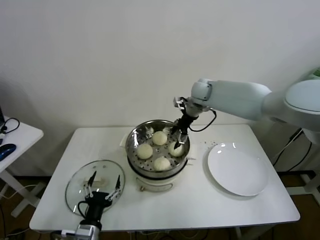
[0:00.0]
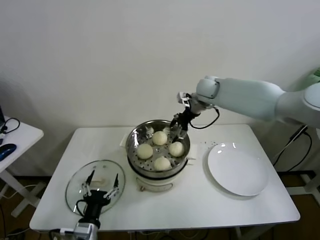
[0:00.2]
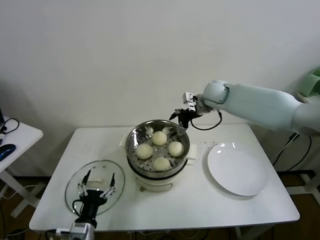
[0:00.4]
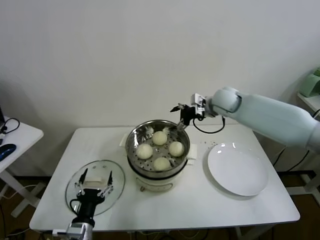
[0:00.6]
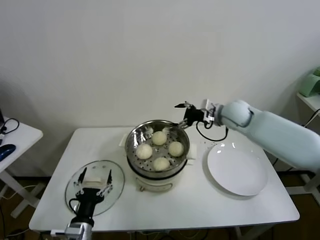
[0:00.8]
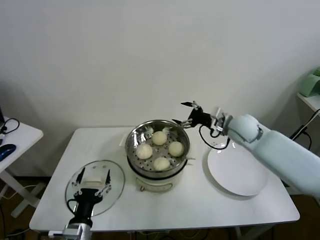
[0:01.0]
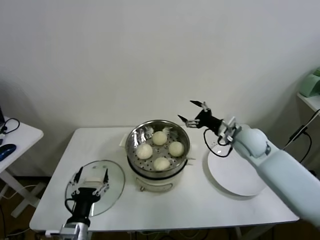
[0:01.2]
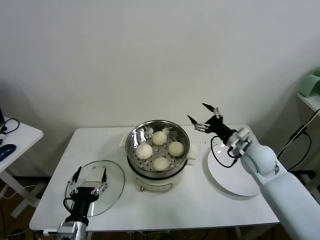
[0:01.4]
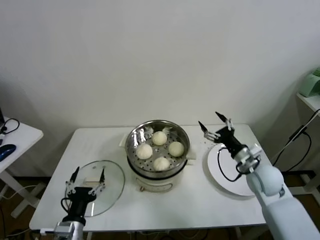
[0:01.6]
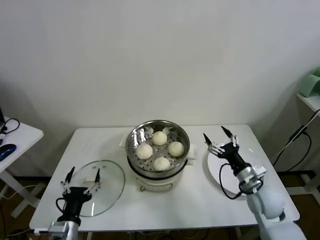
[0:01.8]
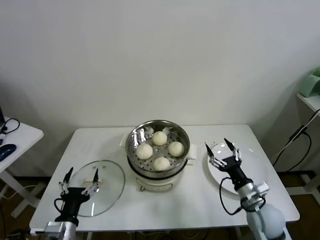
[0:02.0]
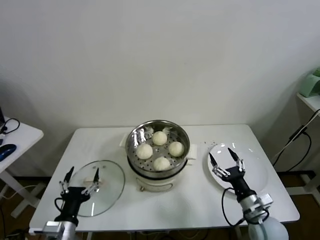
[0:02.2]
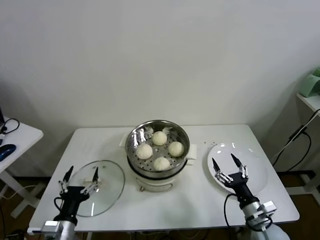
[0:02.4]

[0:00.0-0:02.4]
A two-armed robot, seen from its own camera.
Task of the whole recording: take steamed baozi put them in steamer.
0:00.0 to 0:01.2: The right gripper goes approximately 20 cm backward, to the right and downward.
0:01.2 to 0:02.4: The right gripper moves backward and downward, some 30 cm.

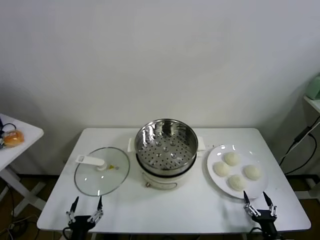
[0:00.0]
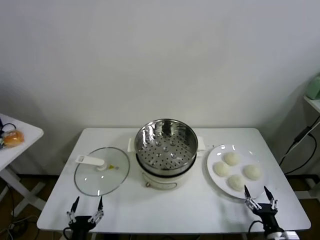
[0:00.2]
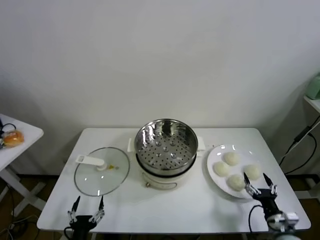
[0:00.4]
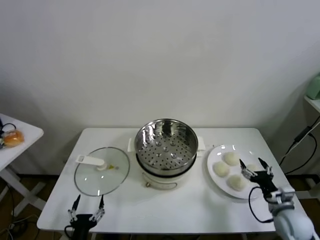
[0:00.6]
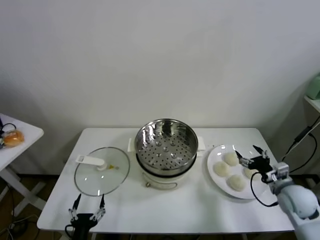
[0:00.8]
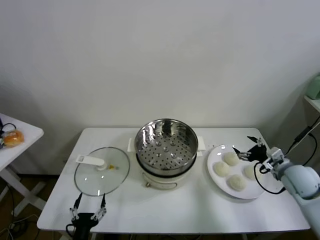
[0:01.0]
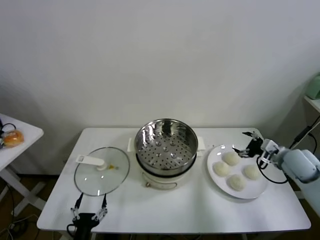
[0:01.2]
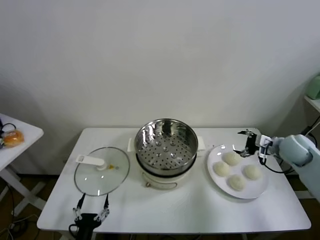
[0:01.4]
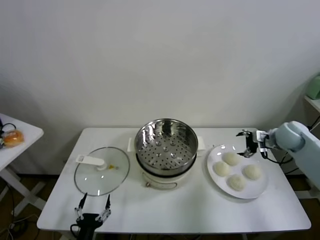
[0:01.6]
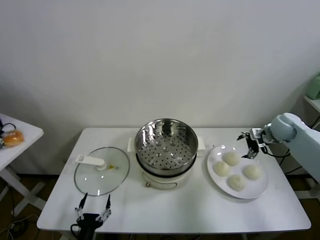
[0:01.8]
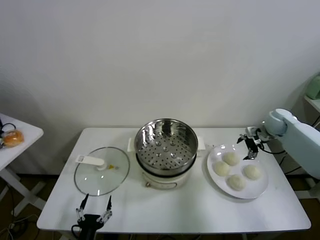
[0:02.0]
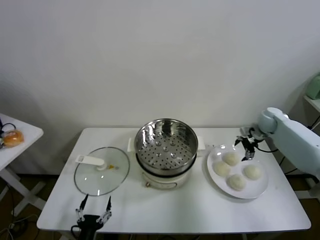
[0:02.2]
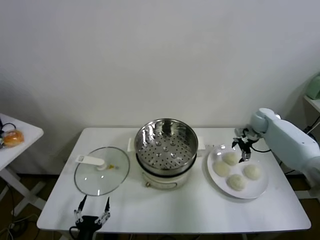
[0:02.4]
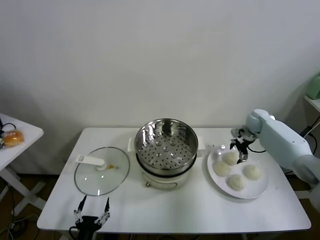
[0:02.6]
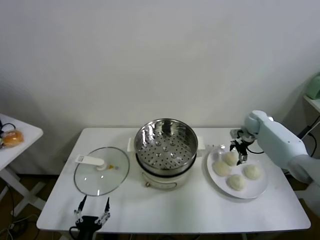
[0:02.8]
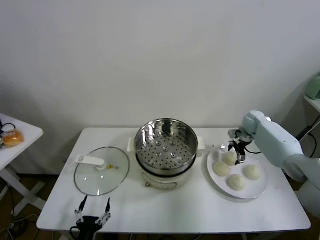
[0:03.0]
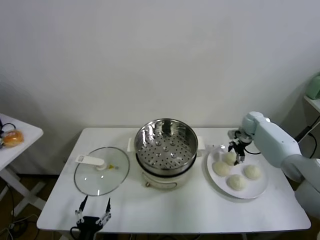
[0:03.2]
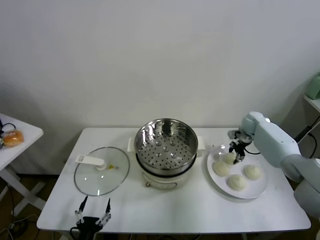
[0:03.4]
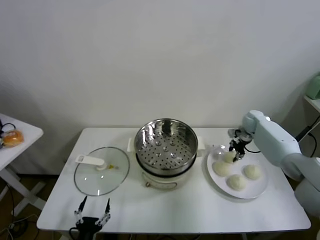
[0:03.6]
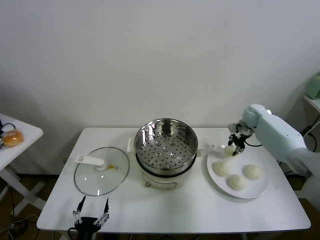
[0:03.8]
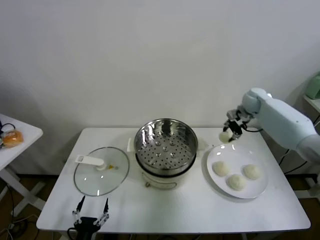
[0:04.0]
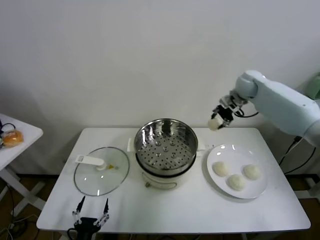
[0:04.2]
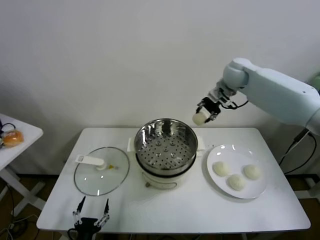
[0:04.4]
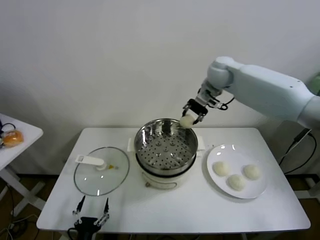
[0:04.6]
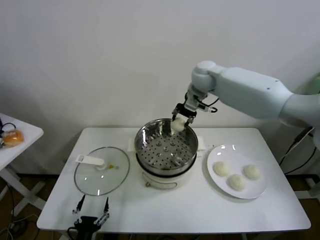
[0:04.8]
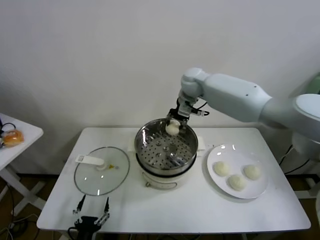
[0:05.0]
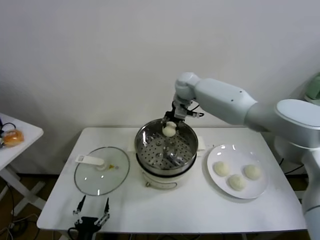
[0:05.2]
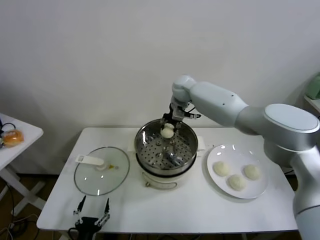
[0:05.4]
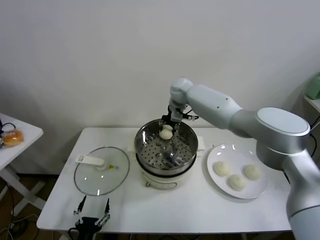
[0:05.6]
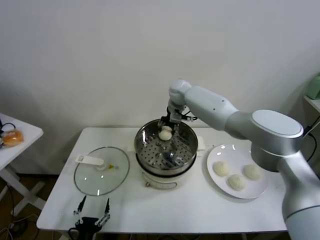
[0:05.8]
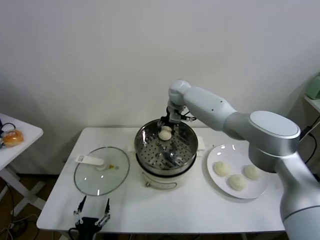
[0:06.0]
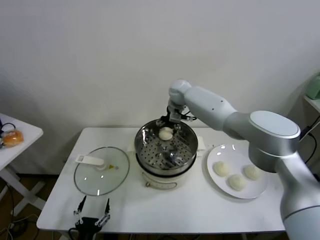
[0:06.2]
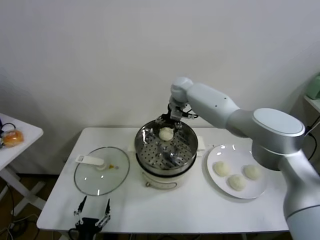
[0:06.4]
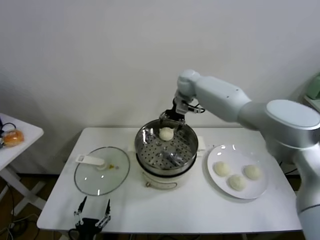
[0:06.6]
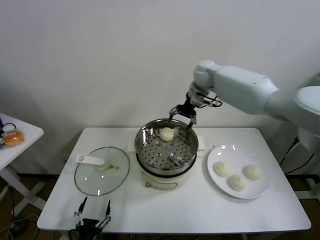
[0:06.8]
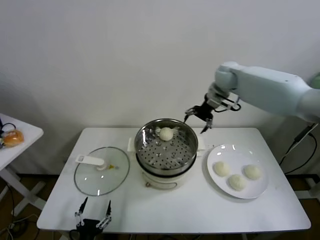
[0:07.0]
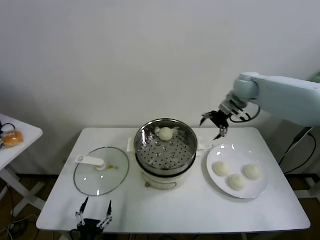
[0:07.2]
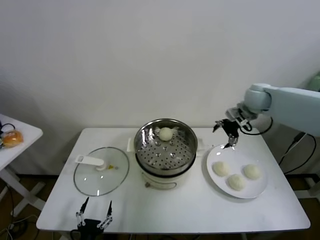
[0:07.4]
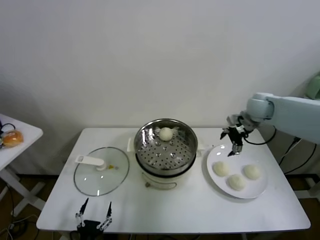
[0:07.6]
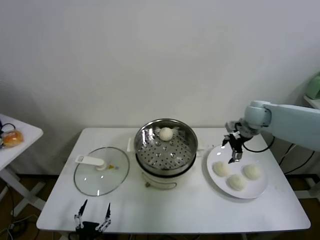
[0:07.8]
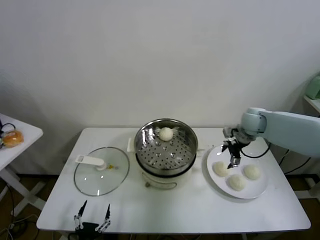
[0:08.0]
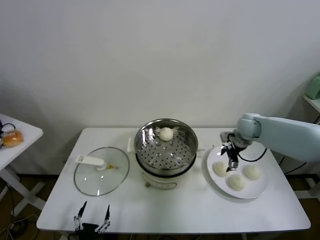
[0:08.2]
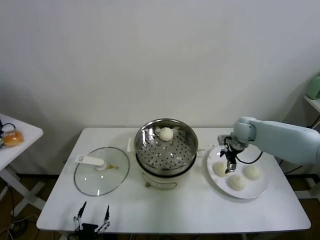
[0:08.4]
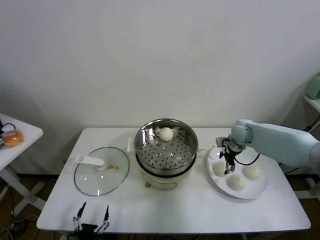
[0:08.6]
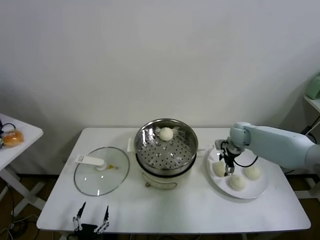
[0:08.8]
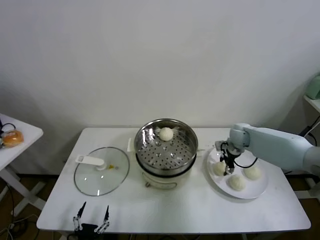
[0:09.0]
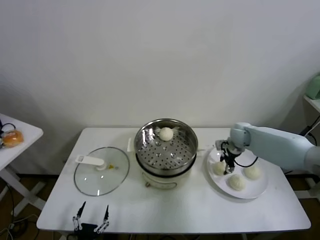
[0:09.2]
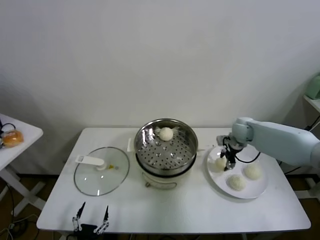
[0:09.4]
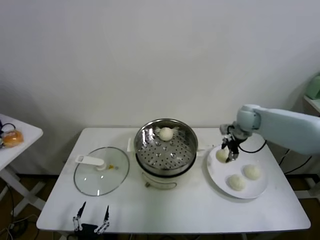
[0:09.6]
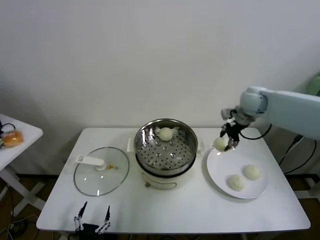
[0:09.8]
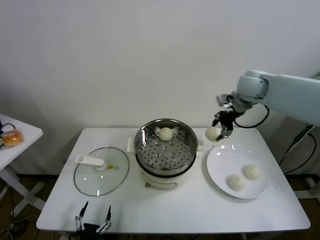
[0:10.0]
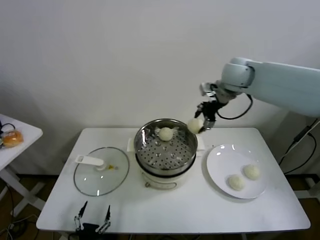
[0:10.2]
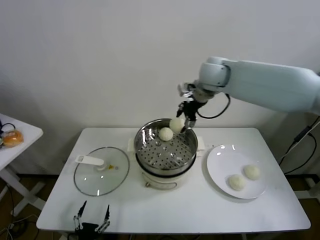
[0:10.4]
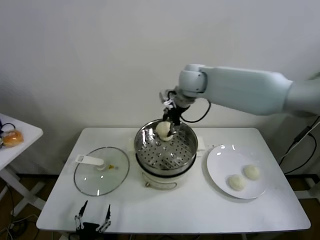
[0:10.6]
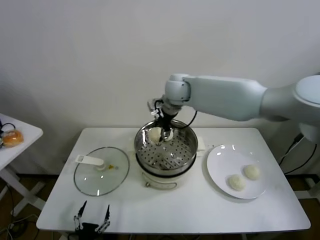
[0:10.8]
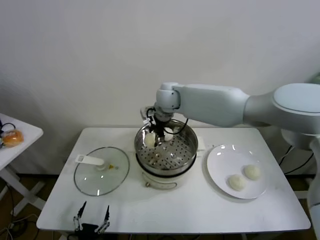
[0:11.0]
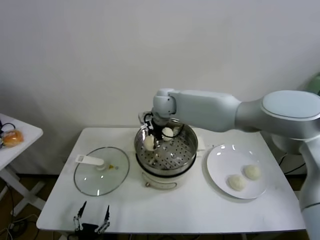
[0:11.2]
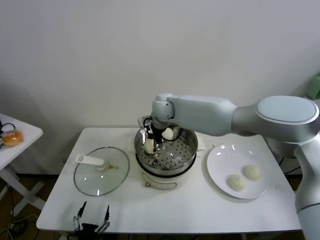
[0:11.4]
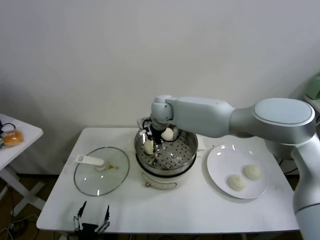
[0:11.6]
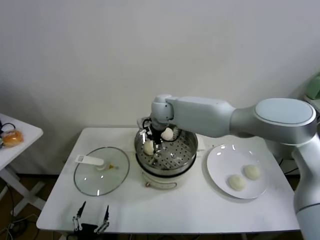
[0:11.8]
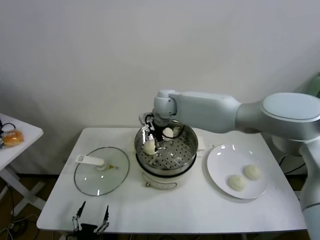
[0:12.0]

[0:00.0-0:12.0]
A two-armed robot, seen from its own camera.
Task of the whole recording: take steamed baozi put them in steamer.
Step, 0:00.0 to 0:03.2: Grasp the baozi in the plate with right gripper.
Step, 0:03.4 to 0:06.2: Place the baozi on the steamer with right gripper.
Step, 0:06.4 to 0:09.0: Grasp the baozi in the plate with right gripper.
Step, 0:09.2 to 0:11.6: Place the baozi on the steamer with right gripper.
0:01.6 to 0:03.0: The right gripper goes roughly 15 cm forward and downward.
0:03.0 to 0:04.4: The right gripper is displaced upward and to the left by approximately 30 cm, and closes its fingers.
0:04.4 to 0:06.0: The right gripper is displaced to the left and downward by some 20 cm.
0:06.0 to 0:07.6: The right gripper shifts approximately 30 cm to the right and backward, and opens its fingers.
0:07.6 to 0:09.0: The right gripper heads downward, covering roughly 15 cm, and closes up.
0:09.0 to 0:10.4: The right gripper travels upward and to the left by some 30 cm.
0:10.4 to 0:12.0: The right gripper goes roughly 15 cm to the left and downward, and opens up.

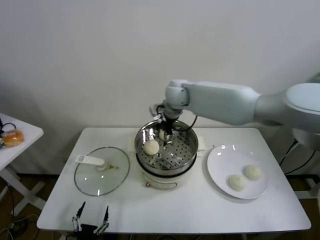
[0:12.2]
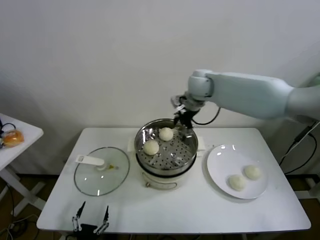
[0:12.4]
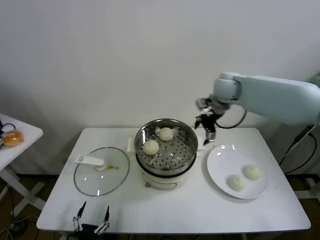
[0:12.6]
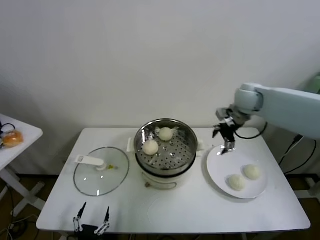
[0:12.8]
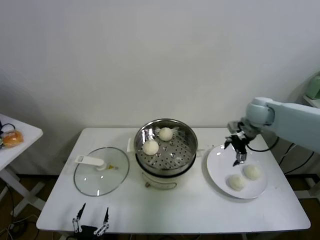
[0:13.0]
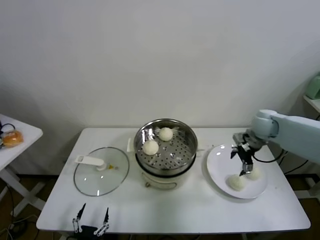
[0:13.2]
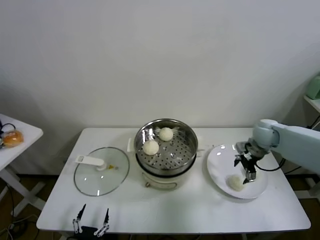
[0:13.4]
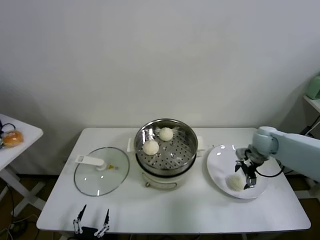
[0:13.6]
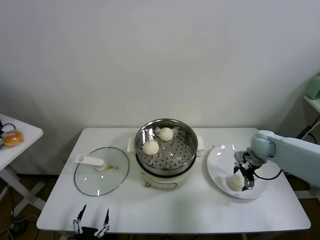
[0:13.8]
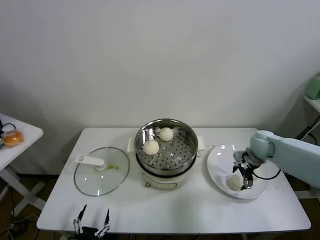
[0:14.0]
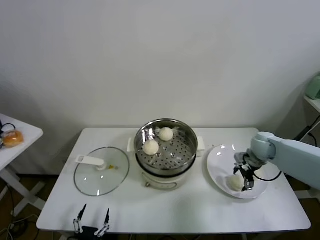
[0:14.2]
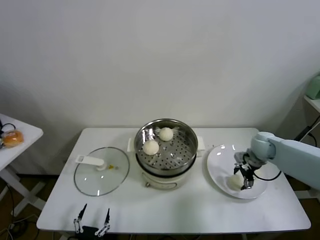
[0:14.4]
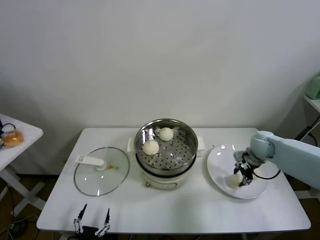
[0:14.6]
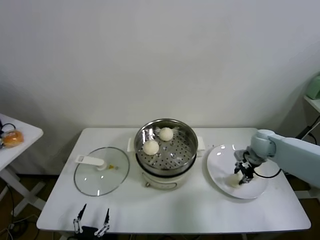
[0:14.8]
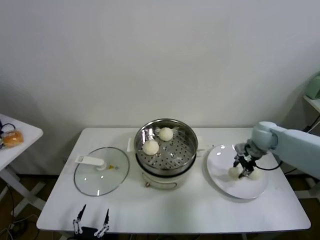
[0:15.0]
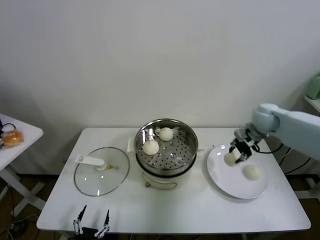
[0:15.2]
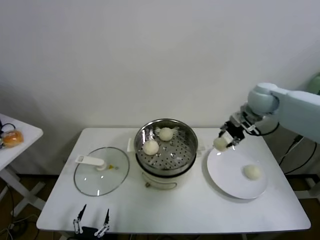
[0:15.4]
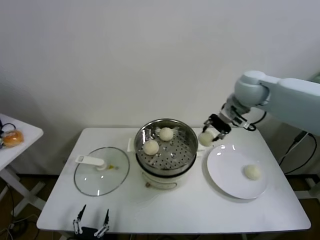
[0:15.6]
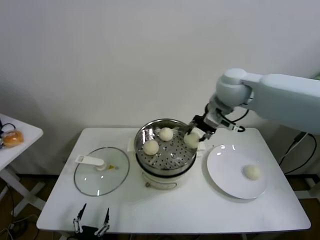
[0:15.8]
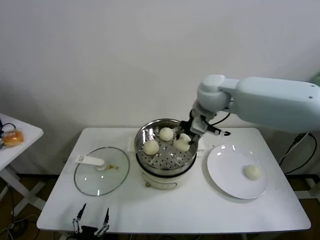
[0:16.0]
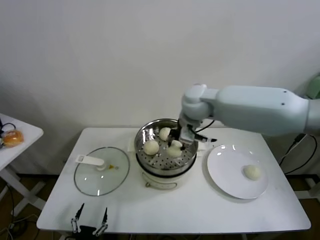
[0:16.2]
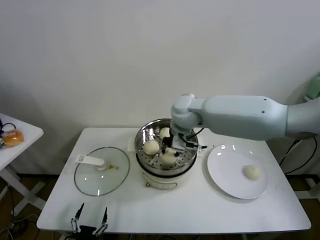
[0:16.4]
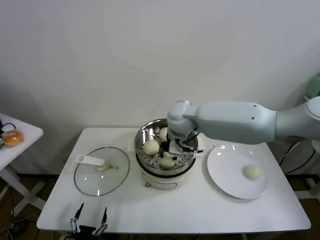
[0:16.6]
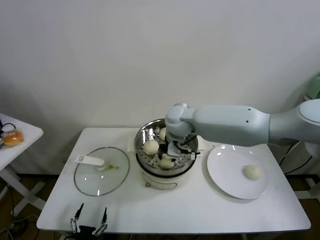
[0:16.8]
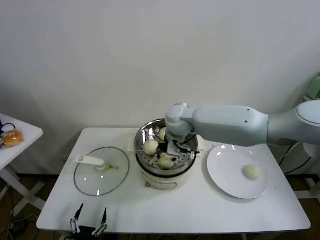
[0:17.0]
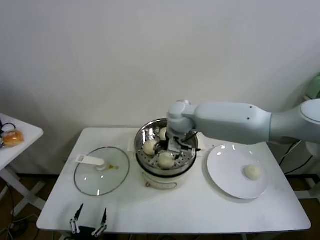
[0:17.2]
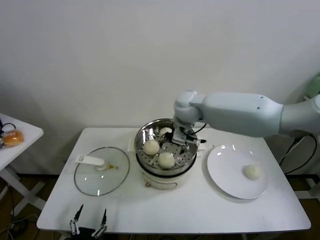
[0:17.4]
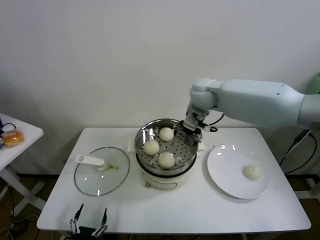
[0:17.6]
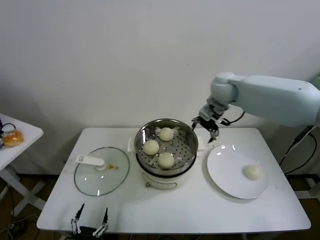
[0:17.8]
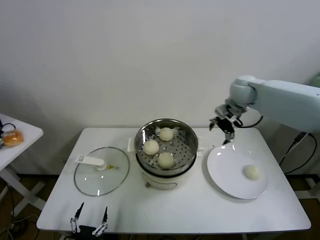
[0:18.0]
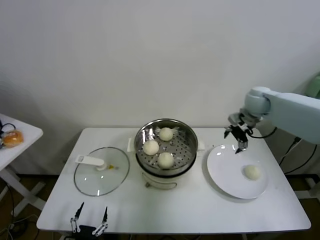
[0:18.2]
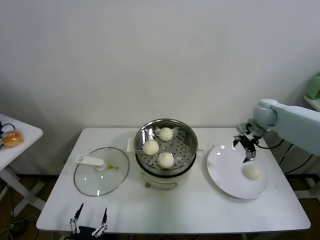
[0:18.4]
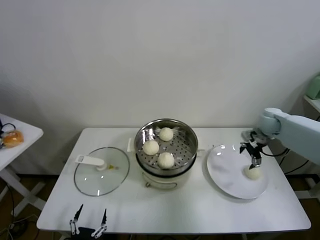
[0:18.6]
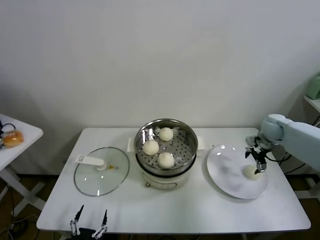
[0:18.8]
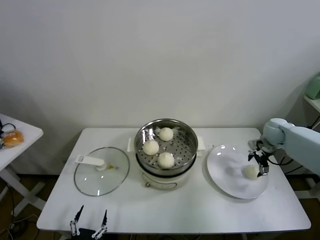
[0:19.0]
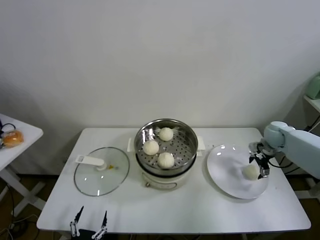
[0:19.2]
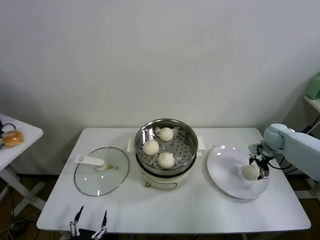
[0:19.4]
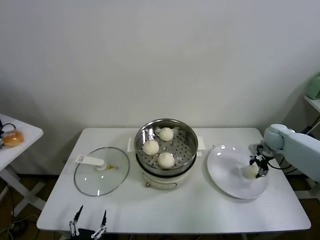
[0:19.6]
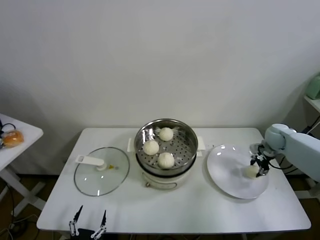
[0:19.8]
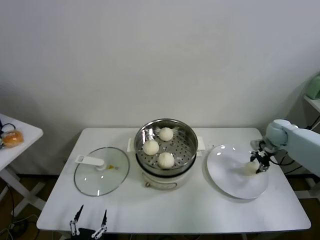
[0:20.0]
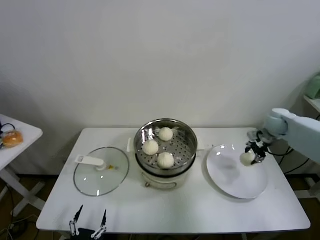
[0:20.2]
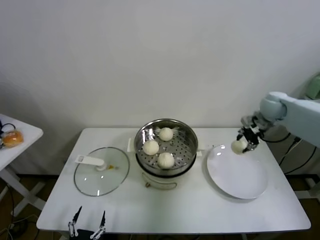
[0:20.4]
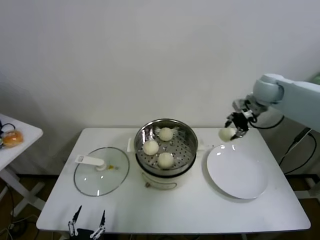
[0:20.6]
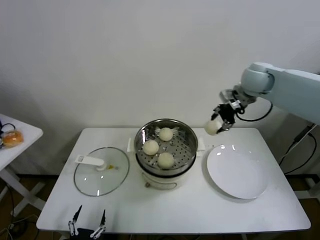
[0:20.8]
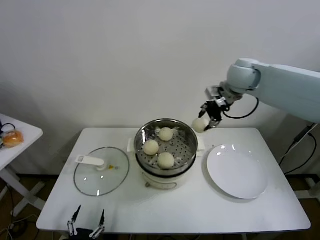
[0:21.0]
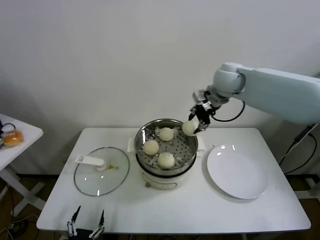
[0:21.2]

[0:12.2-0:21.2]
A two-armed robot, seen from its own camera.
Task of the whole recording: take steamed baozi put them in steamer.
Step, 0:12.2 to 0:14.4: Grasp the baozi in the plate with right gripper.
Step, 0:14.6 to 0:17.2: Place the baozi on the steamer with right gripper.
Step, 0:17.4 to 0:19.6: Grasp the baozi in the plate with right gripper.
0:12.2 to 0:13.8: The right gripper travels to the right and downward by some 35 cm.
0:13.8 to 0:15.2: The right gripper goes some 10 cm upward, and closes its fingers.
0:15.2 to 0:16.6: The right gripper moves to the left, about 30 cm.
0:16.6 to 0:18.2: The right gripper heads to the right, covering roughly 25 cm, and opens its fingers.
0:18.2 to 0:19.8: The right gripper heads downward and to the right, covering some 20 cm, and closes up.
0:19.8 to 0:21.2: The right gripper moves upward and to the left, approximately 35 cm.
